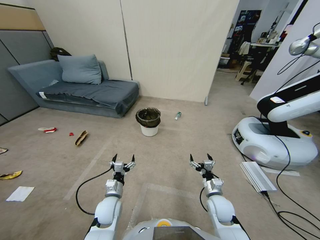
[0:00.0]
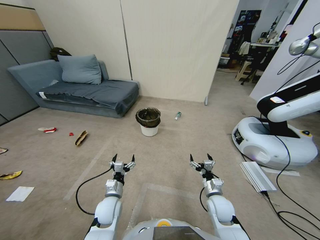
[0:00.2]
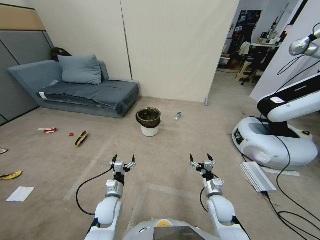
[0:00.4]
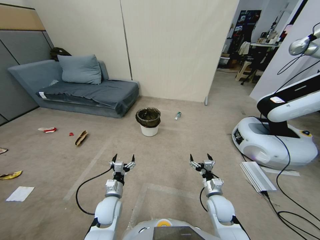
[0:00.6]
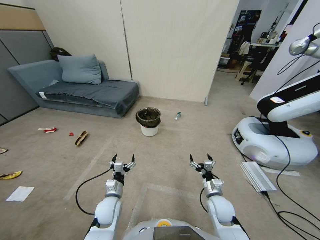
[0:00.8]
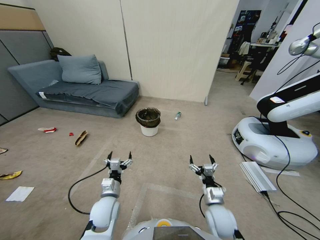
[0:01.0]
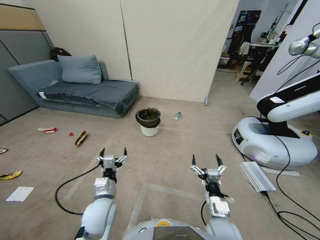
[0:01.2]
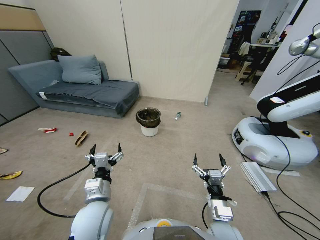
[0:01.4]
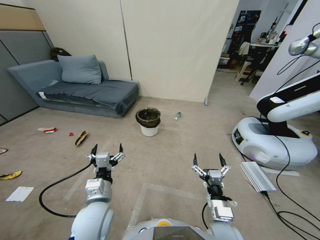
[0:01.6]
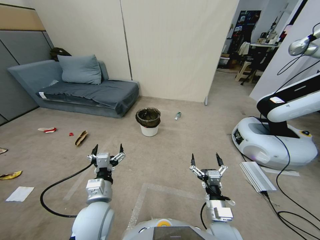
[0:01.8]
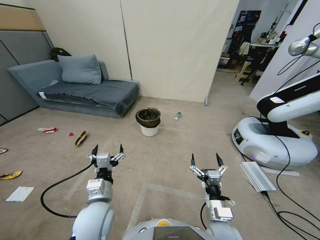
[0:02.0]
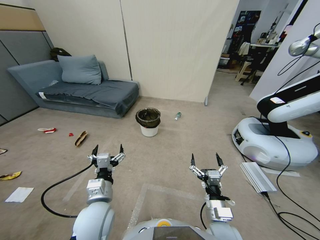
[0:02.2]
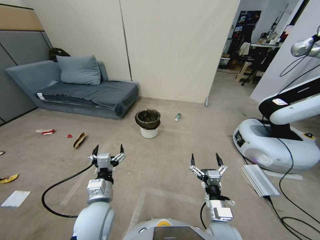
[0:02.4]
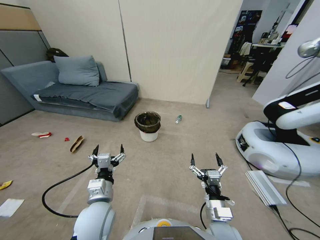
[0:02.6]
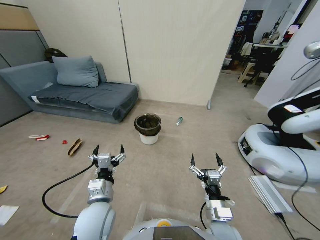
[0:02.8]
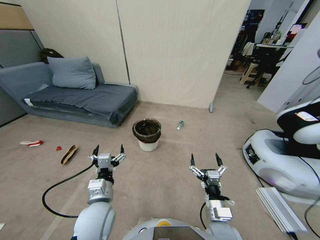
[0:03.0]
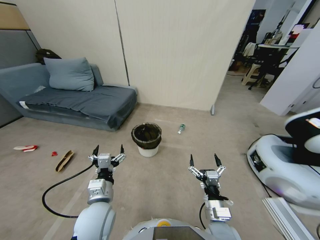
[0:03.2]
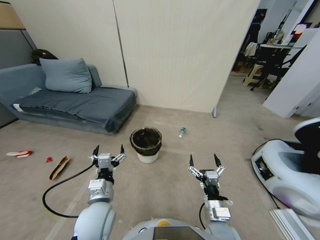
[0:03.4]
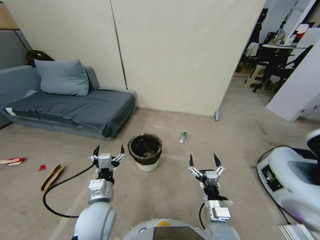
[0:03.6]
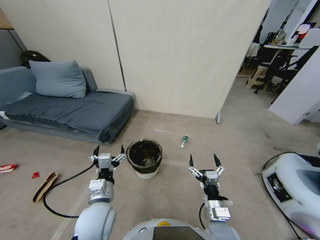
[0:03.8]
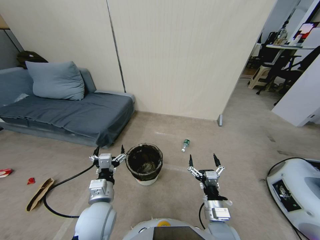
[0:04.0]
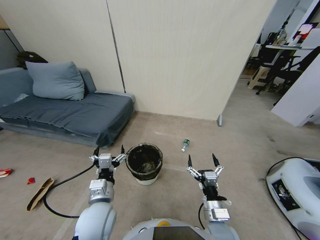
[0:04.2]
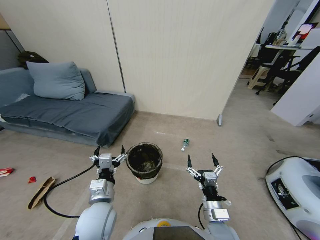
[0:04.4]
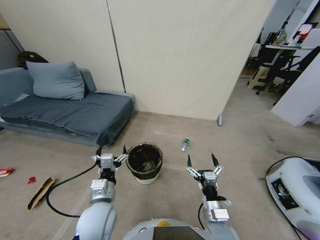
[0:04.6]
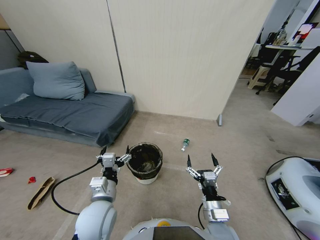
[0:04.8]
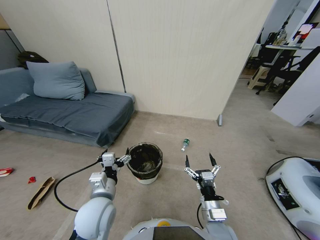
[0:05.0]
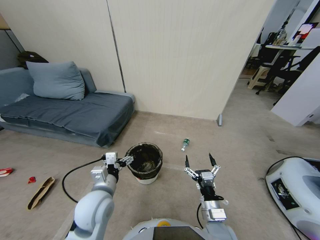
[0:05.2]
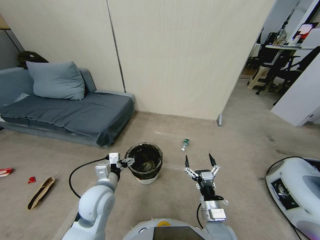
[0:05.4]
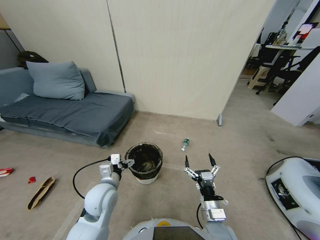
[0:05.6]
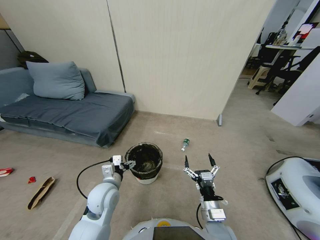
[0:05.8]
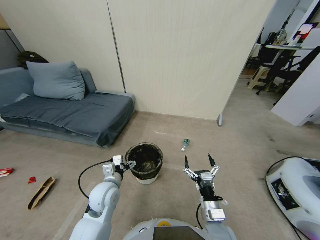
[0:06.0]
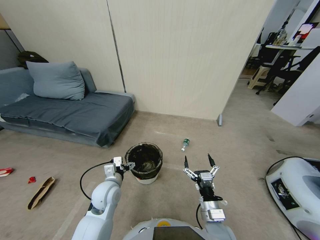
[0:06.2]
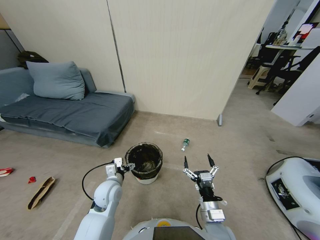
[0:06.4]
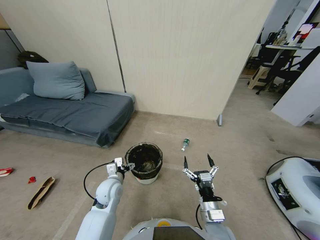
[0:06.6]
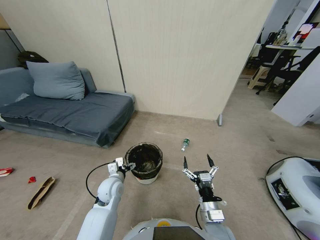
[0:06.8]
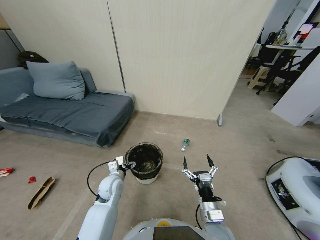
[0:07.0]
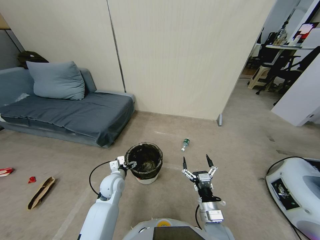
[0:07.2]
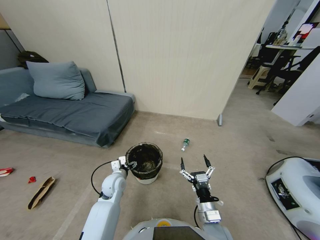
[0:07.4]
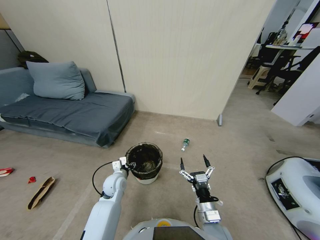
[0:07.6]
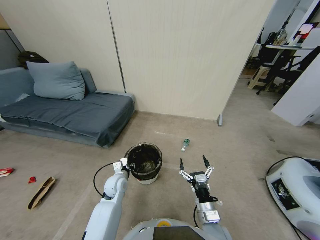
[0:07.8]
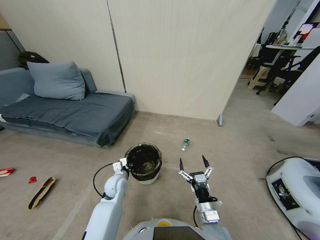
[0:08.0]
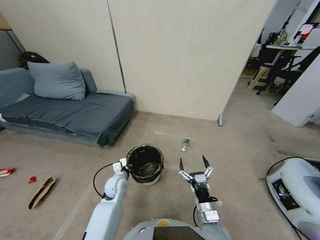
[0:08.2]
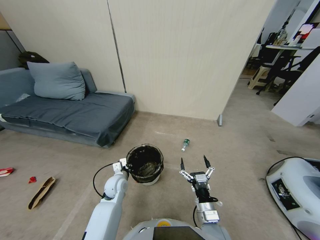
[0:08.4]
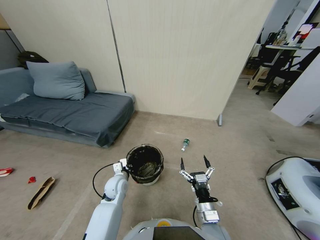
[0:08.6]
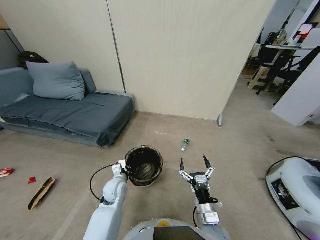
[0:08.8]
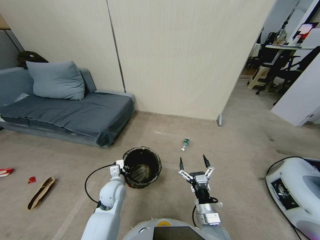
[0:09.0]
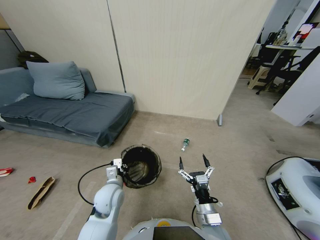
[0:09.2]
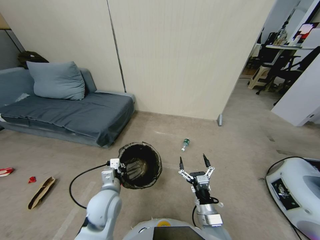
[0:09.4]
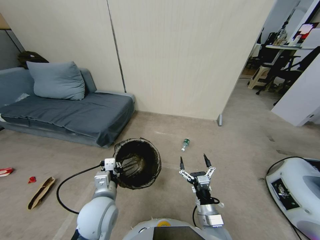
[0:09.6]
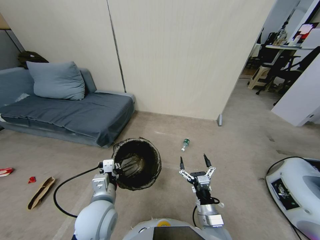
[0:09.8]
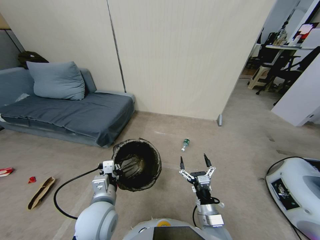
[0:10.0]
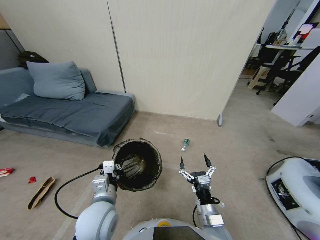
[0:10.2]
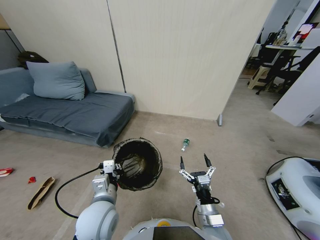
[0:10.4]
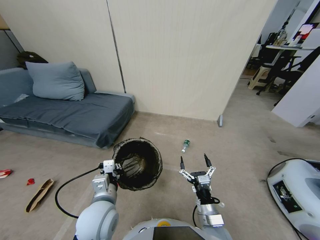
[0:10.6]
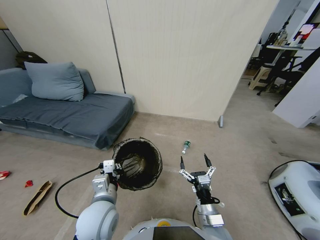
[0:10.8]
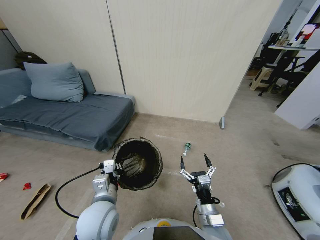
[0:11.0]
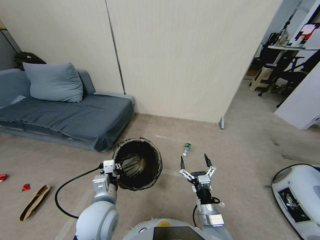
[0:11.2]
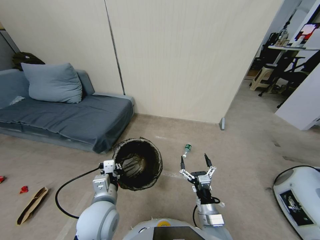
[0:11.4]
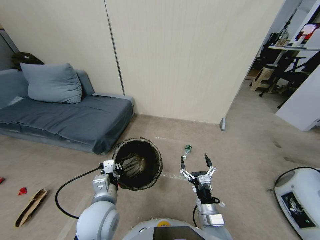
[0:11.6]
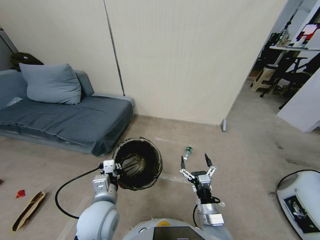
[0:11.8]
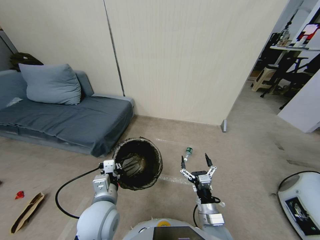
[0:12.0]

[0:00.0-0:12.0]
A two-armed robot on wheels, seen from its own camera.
Task of the whole recording: Pick up the trash bin, then pick up the garbage from the floor and place it into the trash bin.
0:04.4 to 0:06.0: The left gripper shifts some 10 cm forward.
0:06.0 to 0:07.6: The left gripper moves downward and forward, approximately 10 cm, and closes its fingers.
0:07.6 to 0:09.0: The left gripper shifts roughly 10 cm backward and upward, and closes.
0:09.0 to 0:10.4: The left gripper heads upward and backward, covering roughly 10 cm.
0:10.4 to 0:12.0: The two grippers keep their place.

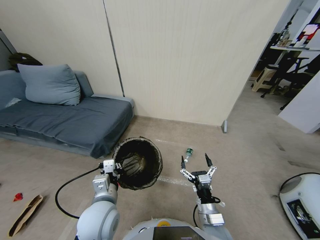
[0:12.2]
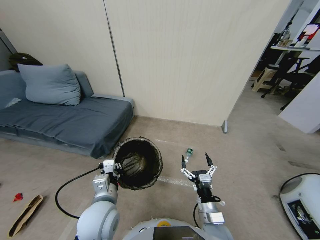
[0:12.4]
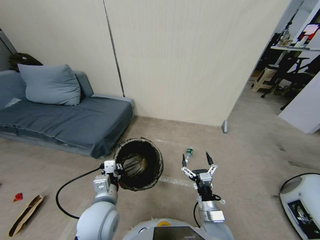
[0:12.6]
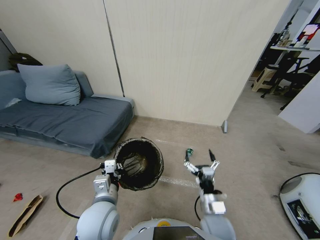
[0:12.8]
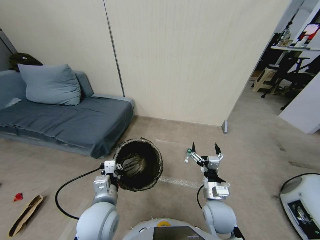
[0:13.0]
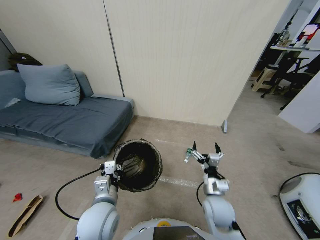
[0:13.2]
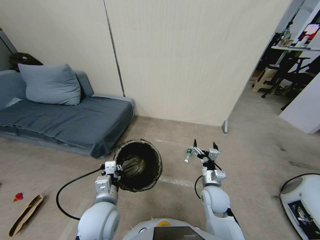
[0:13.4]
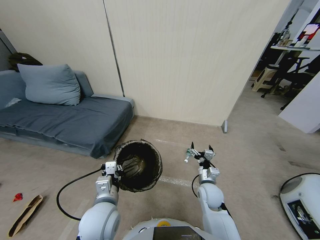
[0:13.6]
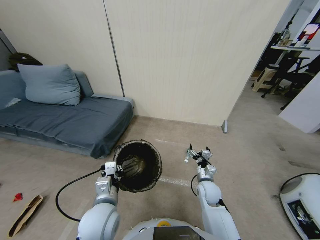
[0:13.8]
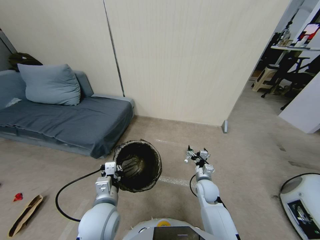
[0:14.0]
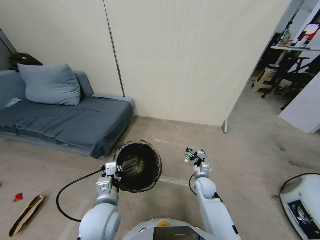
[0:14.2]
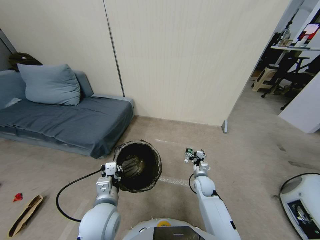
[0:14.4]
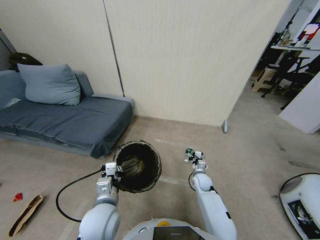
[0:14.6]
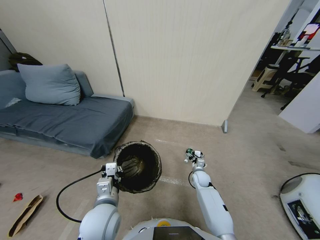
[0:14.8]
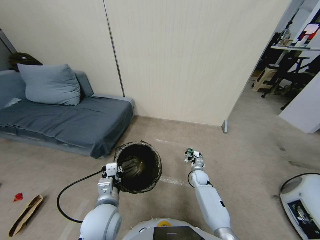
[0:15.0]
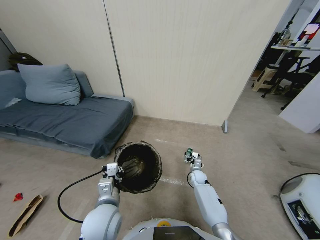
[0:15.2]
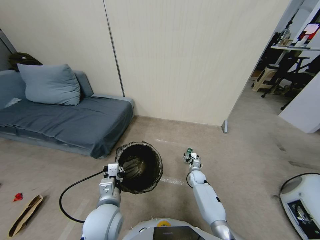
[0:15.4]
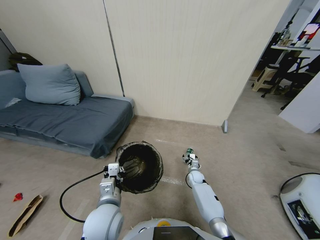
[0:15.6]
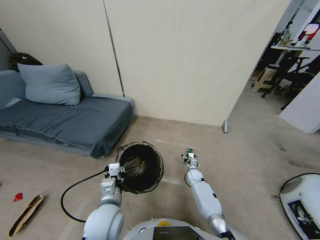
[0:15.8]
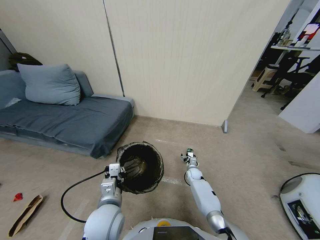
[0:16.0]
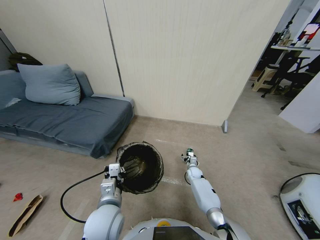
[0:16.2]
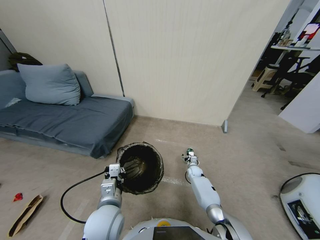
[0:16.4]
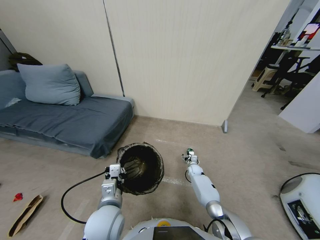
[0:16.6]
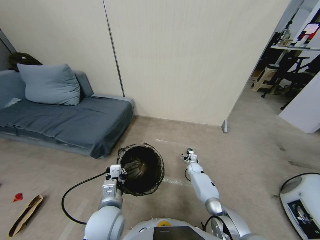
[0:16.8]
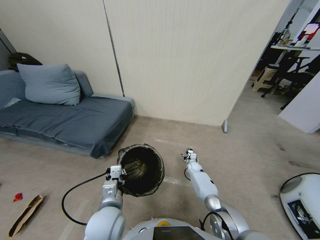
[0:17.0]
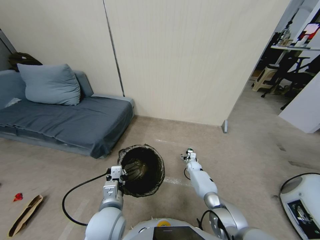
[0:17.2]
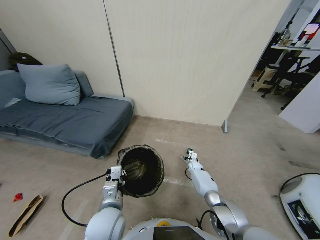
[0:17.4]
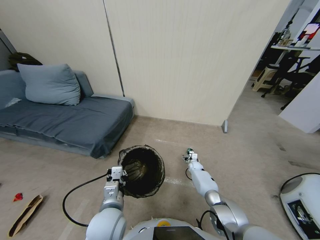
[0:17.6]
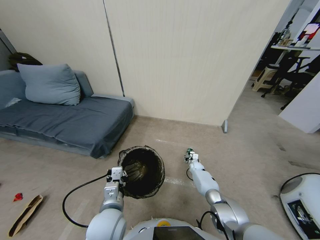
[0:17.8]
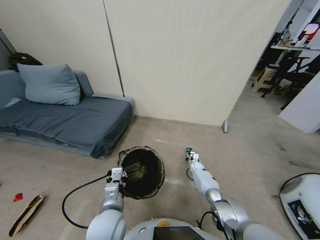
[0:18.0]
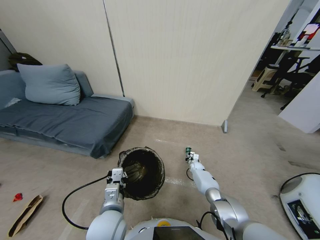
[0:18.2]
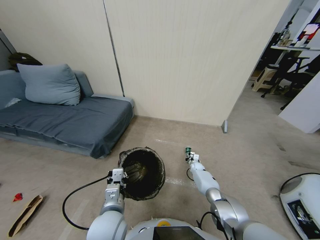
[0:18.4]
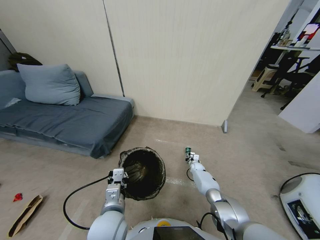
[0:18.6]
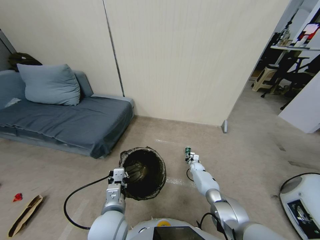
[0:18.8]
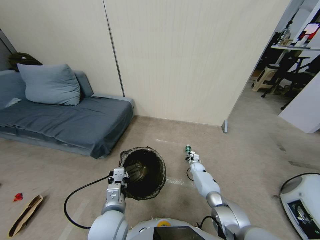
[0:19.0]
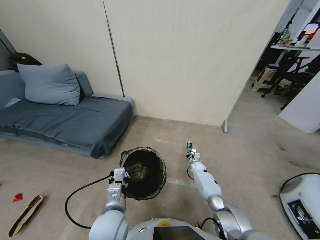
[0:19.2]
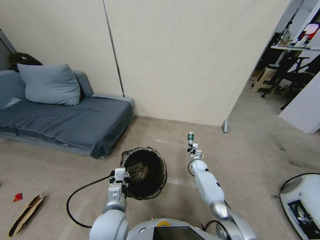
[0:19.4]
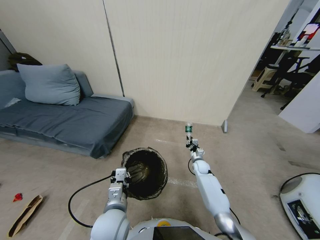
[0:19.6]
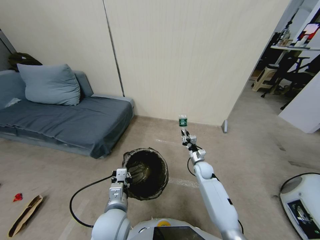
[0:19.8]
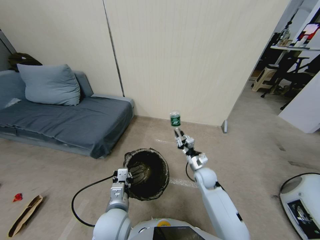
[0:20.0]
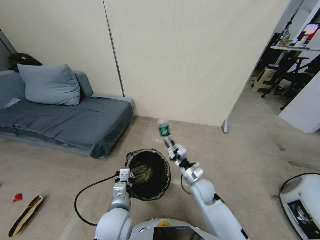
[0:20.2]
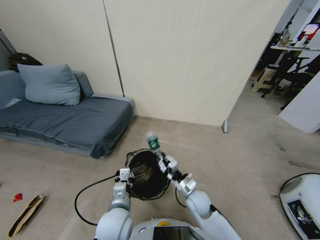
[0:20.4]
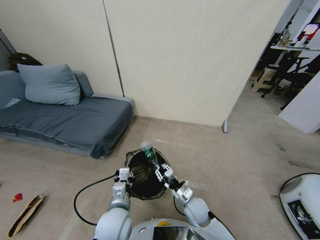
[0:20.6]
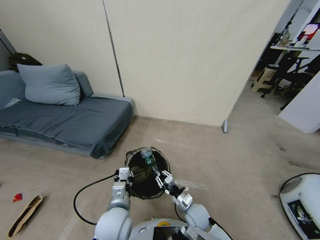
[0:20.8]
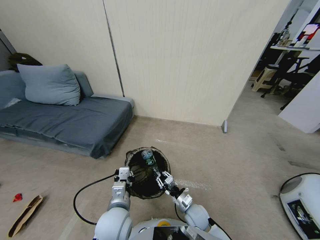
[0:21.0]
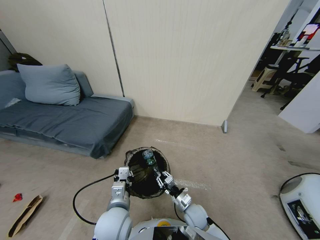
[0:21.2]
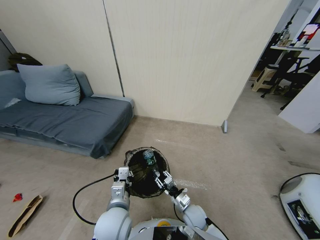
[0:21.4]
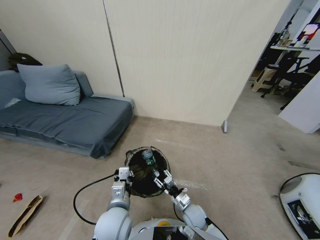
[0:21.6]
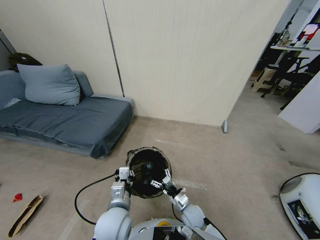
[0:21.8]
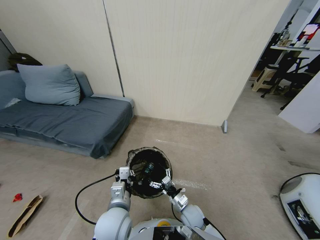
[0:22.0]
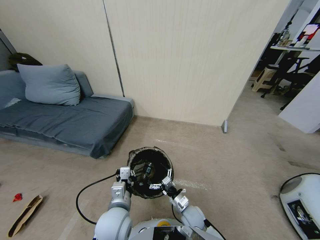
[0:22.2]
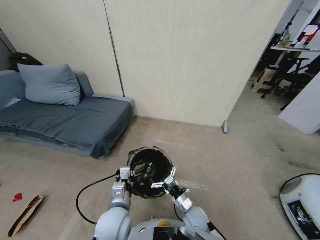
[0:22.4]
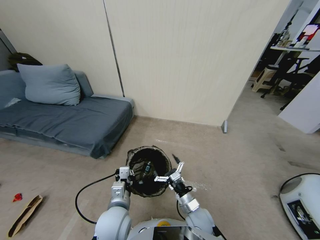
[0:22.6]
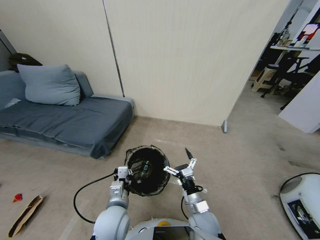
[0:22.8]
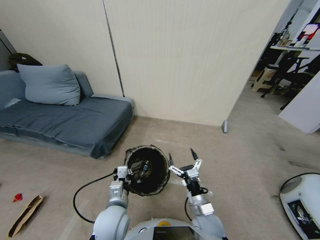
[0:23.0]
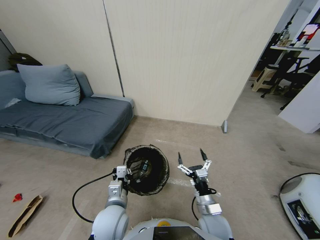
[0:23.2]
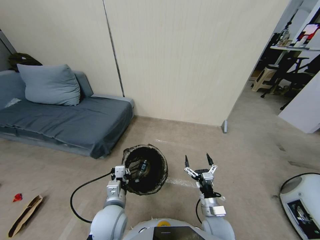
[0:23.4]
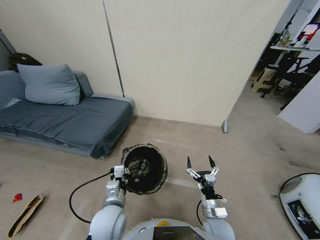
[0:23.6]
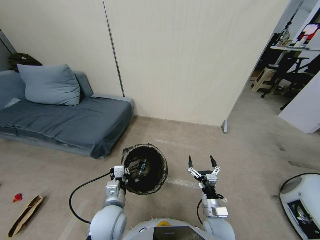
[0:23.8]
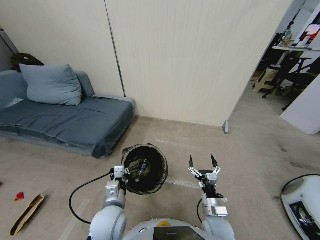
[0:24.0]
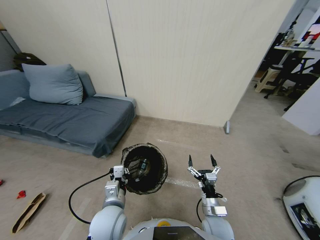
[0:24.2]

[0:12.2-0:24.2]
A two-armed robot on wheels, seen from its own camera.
Task of the whole recording: Pick up the trash bin, then pick up the garbage from the floor and place it into the trash bin.
0:12.2 to 0:13.8: The right gripper shifts about 15 cm forward.
0:13.8 to 0:15.2: The right gripper heads downward and forward, covering roughly 20 cm.
0:15.2 to 0:16.6: The right gripper travels forward by approximately 5 cm.
0:16.6 to 0:18.2: The right gripper closes up.
0:18.2 to 0:19.8: The right gripper is displaced upward and backward by approximately 25 cm.
0:19.8 to 0:21.2: The right gripper shifts some 20 cm backward, downward and to the left.
0:21.2 to 0:22.6: The right gripper moves upward, approximately 10 cm, and opens its fingers.
0:22.6 to 0:24.2: The right gripper shifts roughly 5 cm to the right.
